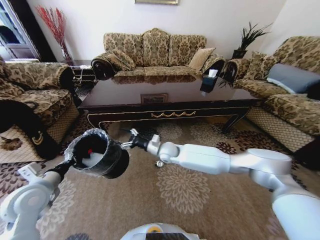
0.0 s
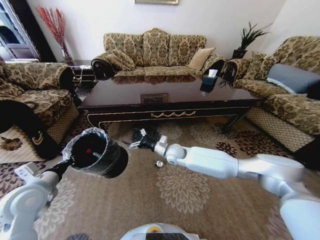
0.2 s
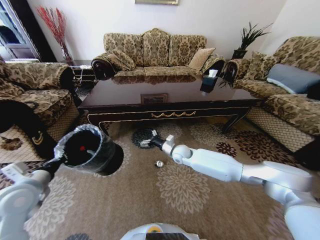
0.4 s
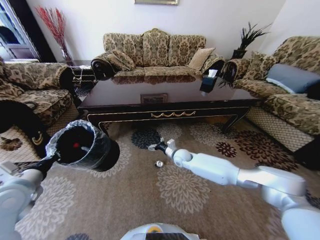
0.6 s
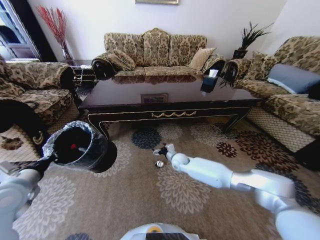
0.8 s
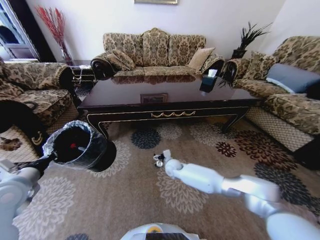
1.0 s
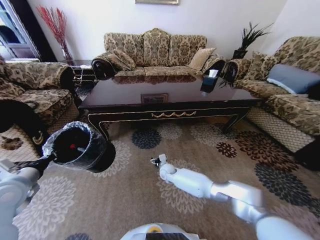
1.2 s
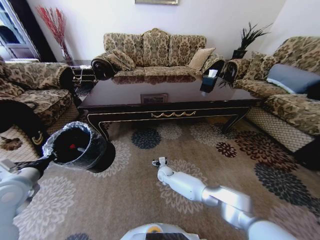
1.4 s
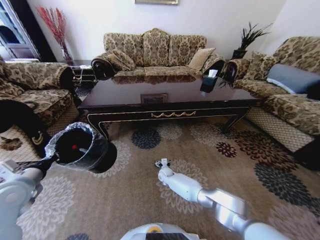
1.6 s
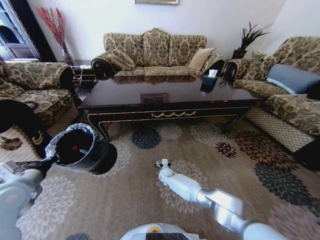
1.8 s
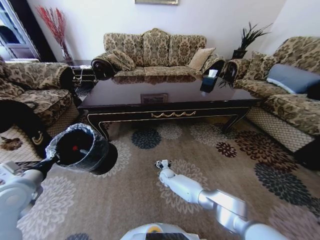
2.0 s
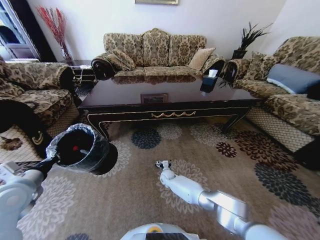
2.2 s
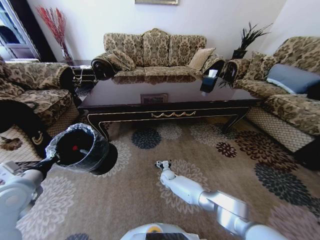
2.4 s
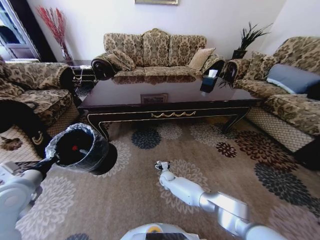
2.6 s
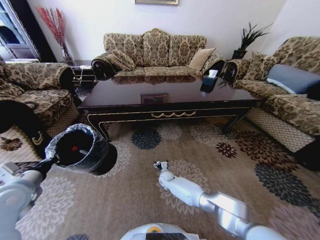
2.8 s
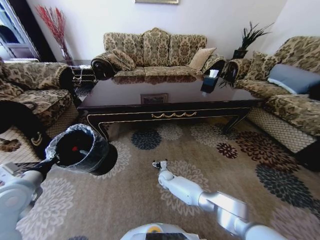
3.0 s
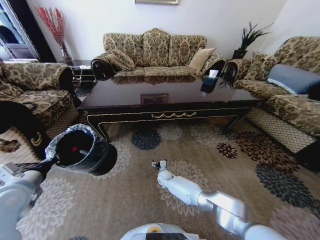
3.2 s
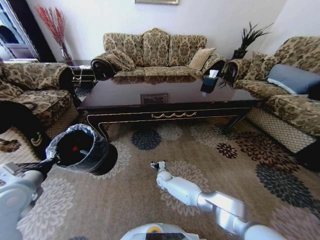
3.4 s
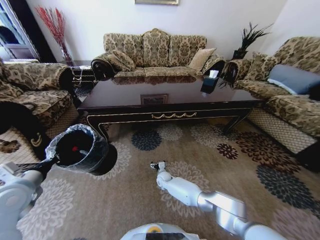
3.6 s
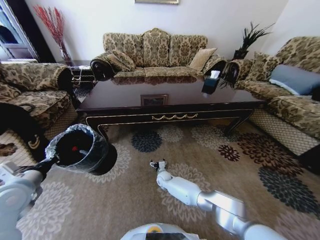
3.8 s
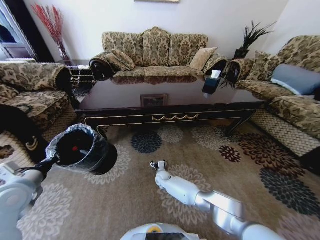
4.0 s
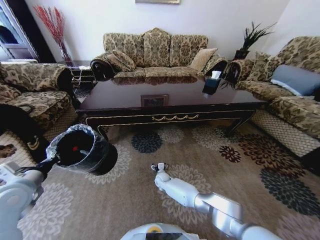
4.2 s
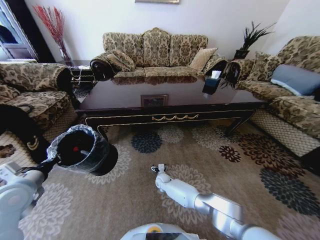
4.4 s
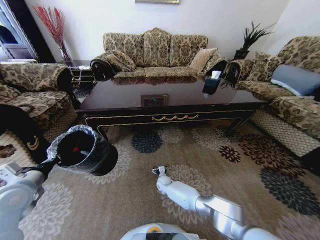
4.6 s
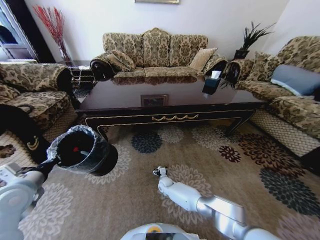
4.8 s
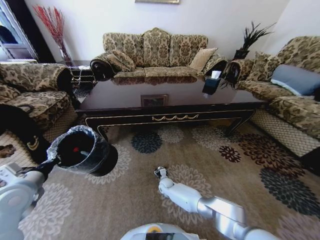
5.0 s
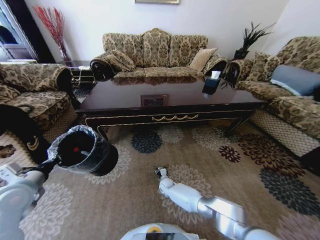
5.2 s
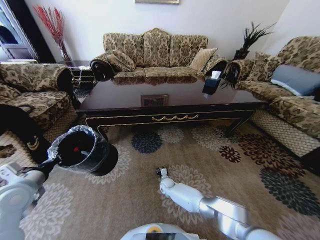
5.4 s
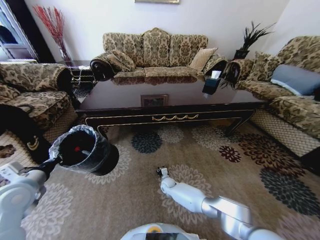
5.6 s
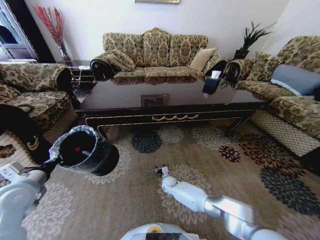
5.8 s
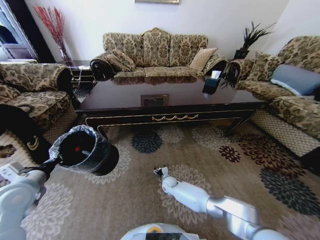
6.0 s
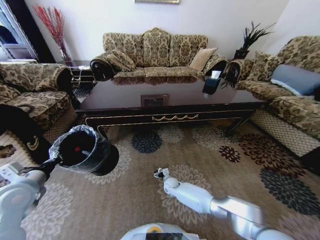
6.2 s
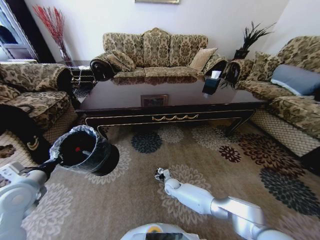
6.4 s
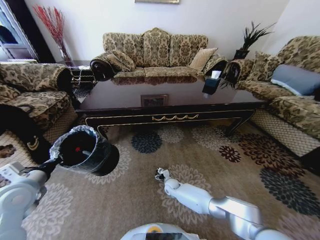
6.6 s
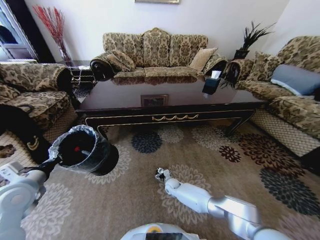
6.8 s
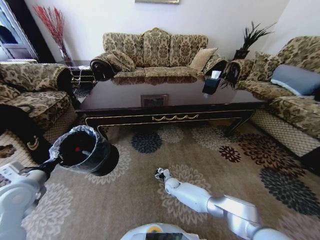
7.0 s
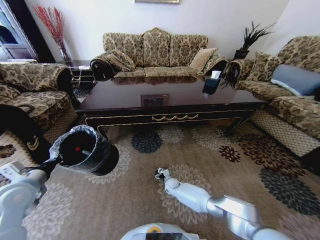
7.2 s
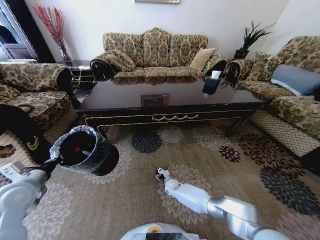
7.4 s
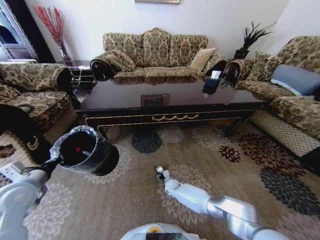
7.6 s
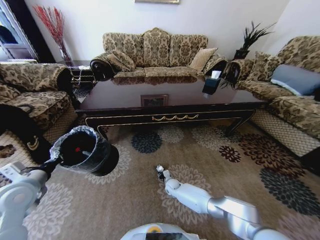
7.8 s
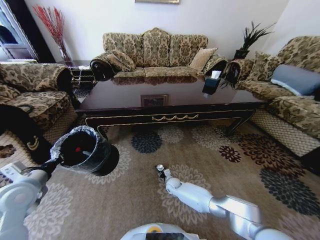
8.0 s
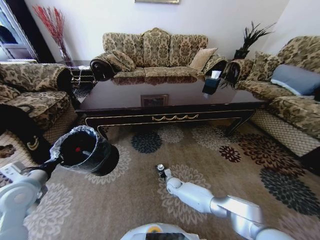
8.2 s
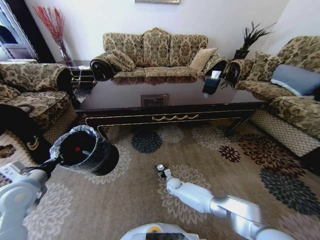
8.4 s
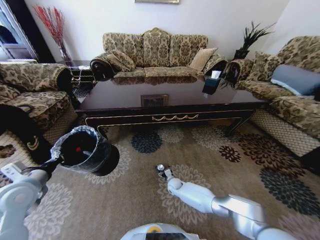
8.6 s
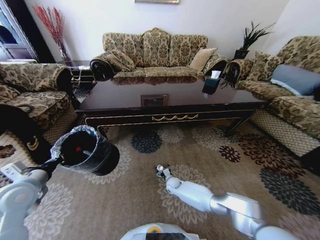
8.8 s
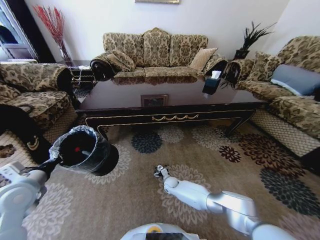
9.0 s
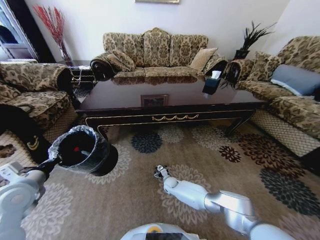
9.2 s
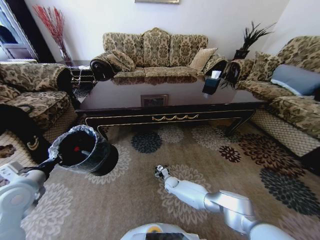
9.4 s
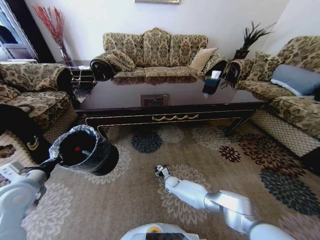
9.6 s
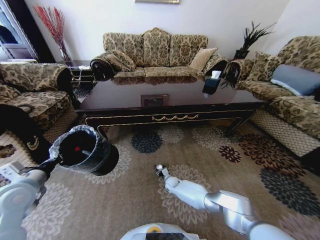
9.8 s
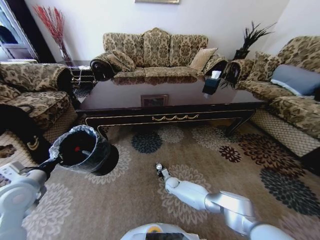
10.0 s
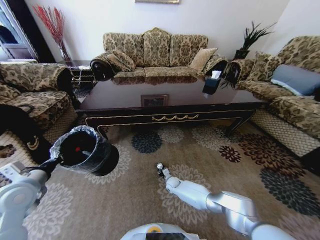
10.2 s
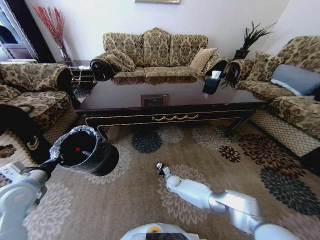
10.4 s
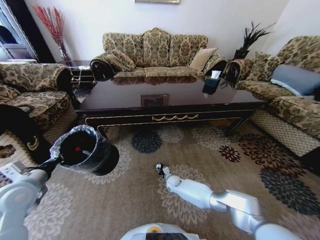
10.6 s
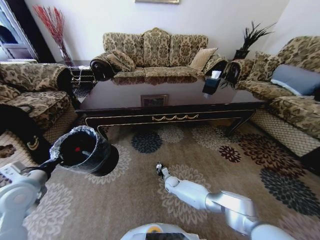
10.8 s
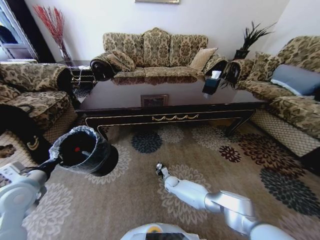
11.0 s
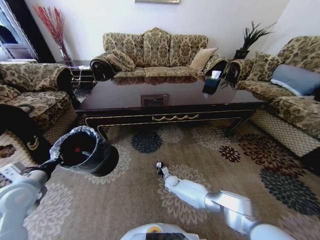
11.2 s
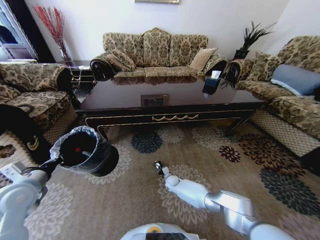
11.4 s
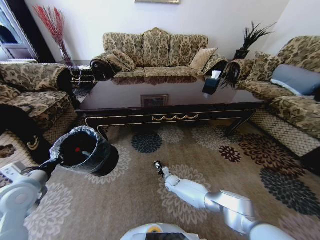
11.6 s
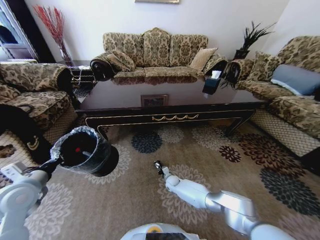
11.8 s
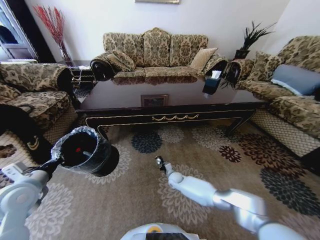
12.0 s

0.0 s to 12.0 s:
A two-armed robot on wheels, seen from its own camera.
Task of the whole recording: Move to the front of the table and pick up the trash from the floor, then place it into the trash bin.
0.0 to 1.6 s: The right gripper goes about 25 cm downward.
1.6 to 4.4 s: The grippers stay close to where they were, moving slightly.
4.4 to 6.0 s: The right gripper closes, then reopens.
6.0 to 7.6 s: The grippers stay close to where they were, moving slightly.
7.6 to 9.0 s: The right gripper opens.
9.0 to 10.4 s: The right gripper closes up.
10.4 to 12.0 s: The right gripper closes its fingers.

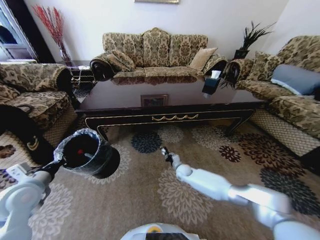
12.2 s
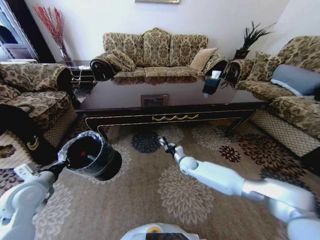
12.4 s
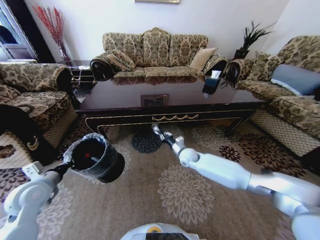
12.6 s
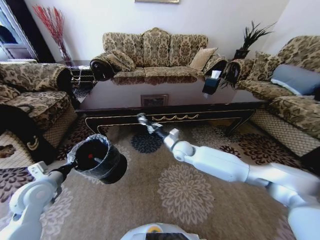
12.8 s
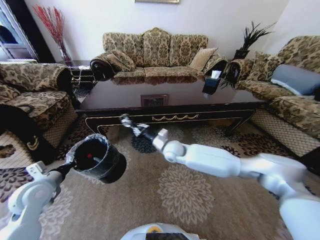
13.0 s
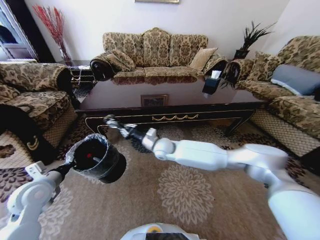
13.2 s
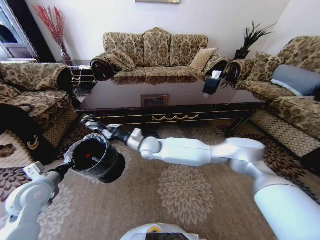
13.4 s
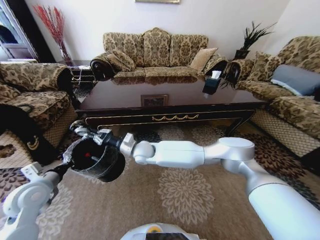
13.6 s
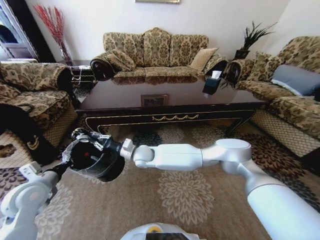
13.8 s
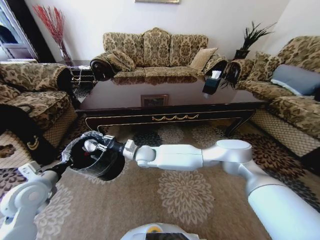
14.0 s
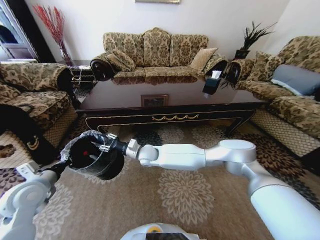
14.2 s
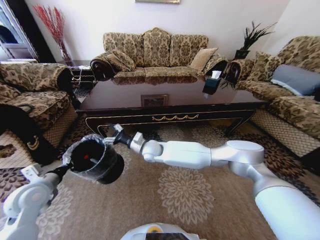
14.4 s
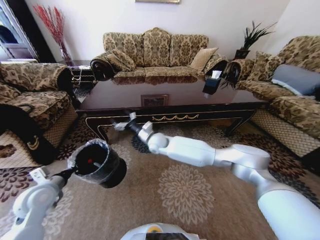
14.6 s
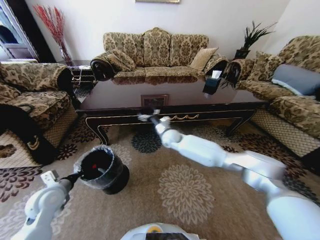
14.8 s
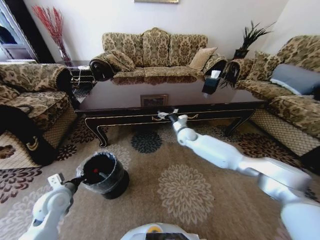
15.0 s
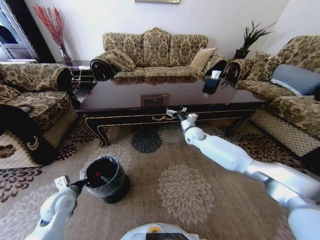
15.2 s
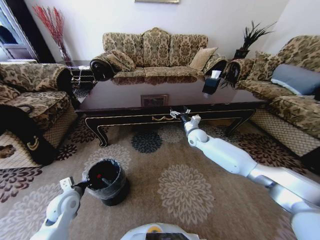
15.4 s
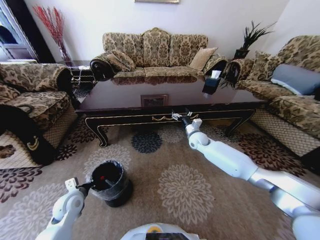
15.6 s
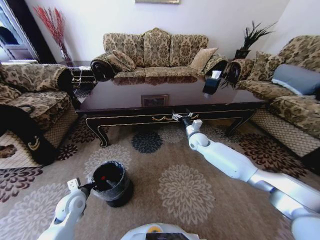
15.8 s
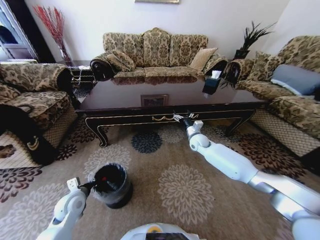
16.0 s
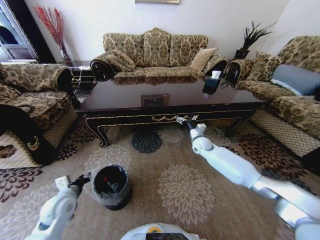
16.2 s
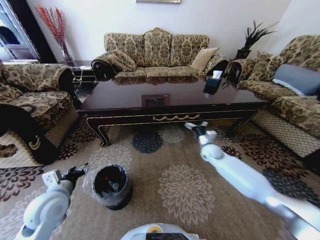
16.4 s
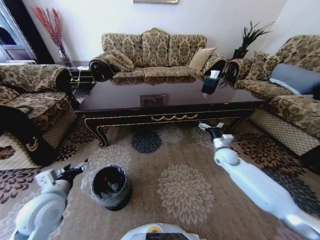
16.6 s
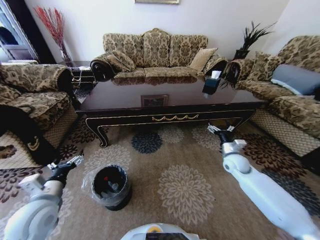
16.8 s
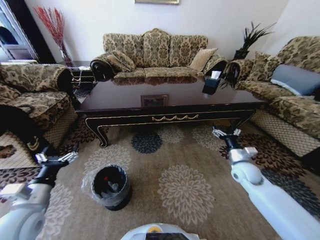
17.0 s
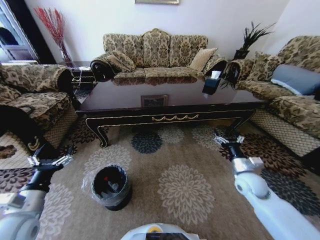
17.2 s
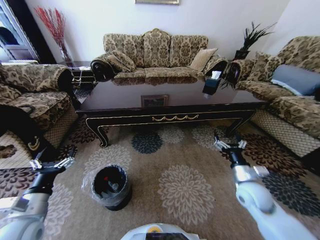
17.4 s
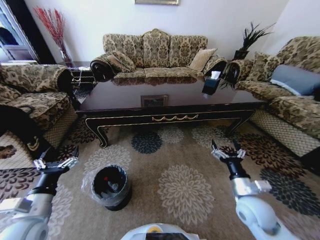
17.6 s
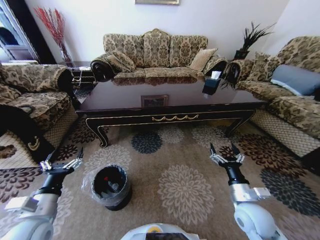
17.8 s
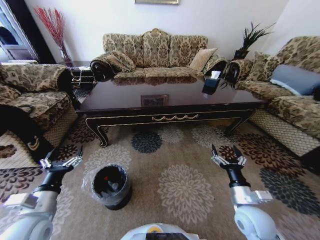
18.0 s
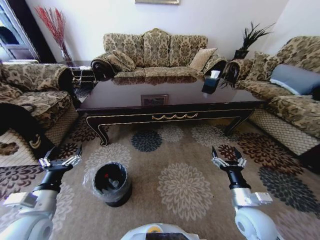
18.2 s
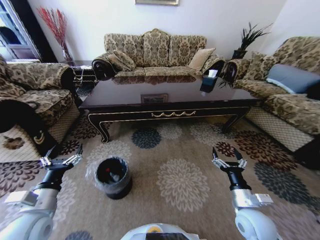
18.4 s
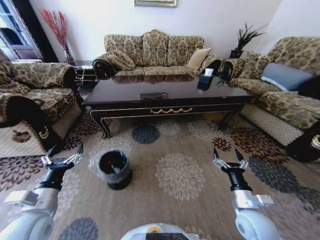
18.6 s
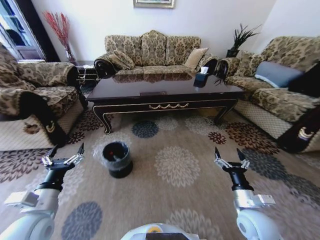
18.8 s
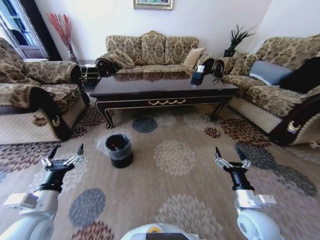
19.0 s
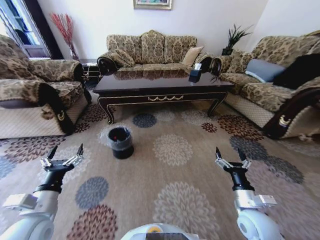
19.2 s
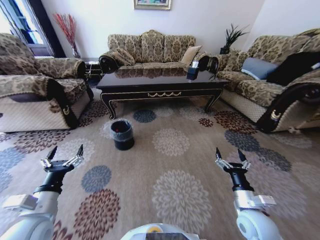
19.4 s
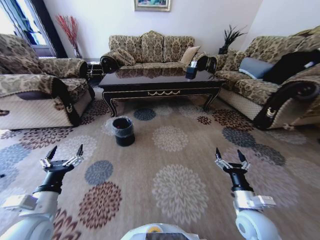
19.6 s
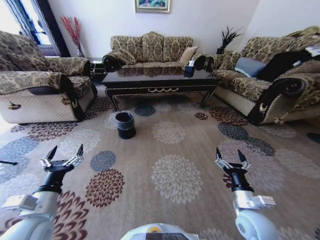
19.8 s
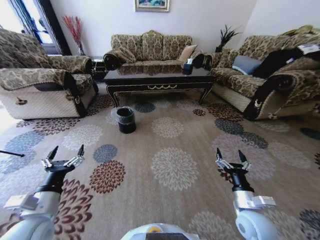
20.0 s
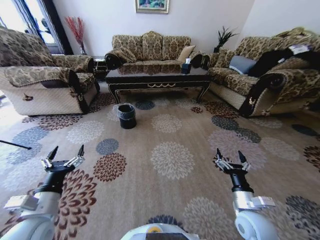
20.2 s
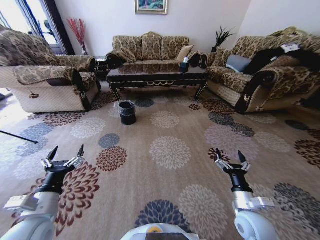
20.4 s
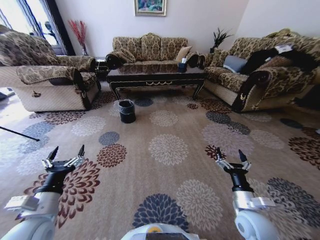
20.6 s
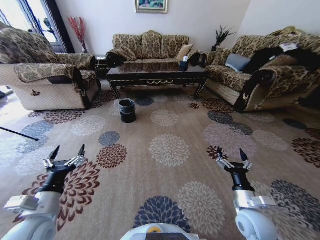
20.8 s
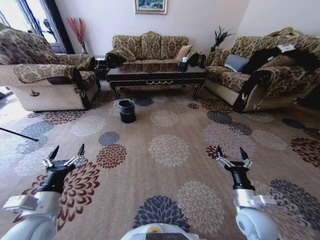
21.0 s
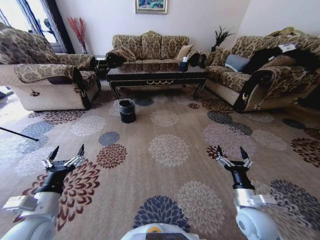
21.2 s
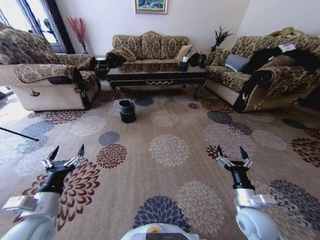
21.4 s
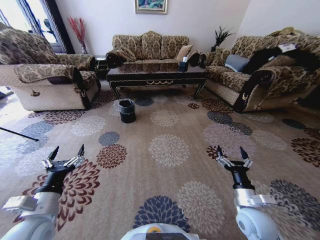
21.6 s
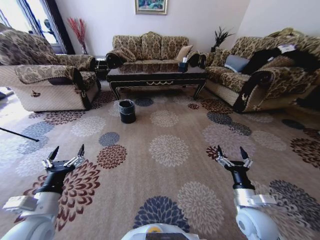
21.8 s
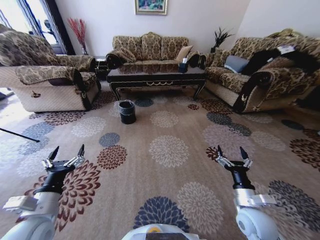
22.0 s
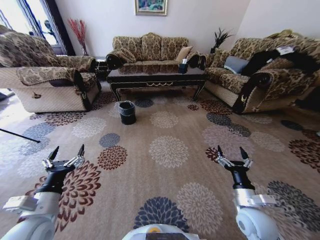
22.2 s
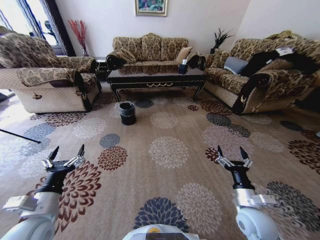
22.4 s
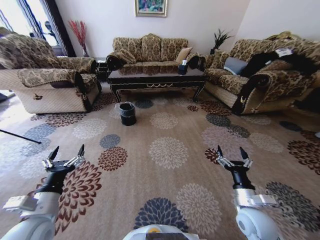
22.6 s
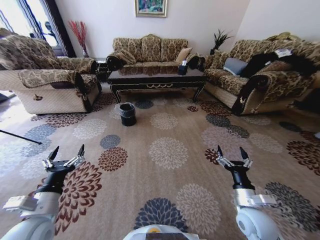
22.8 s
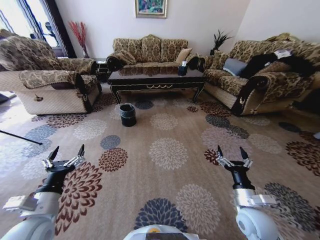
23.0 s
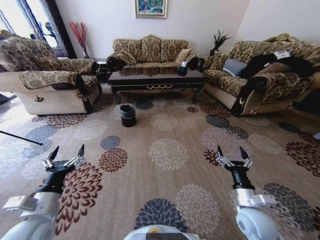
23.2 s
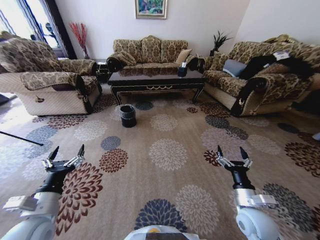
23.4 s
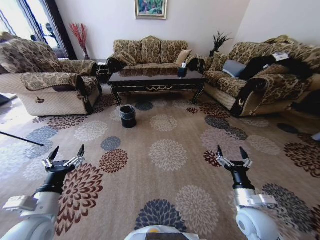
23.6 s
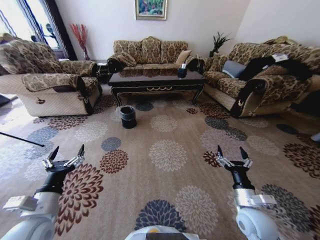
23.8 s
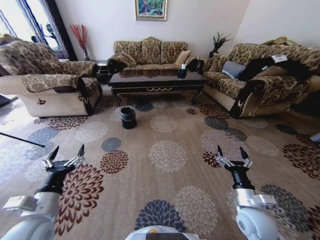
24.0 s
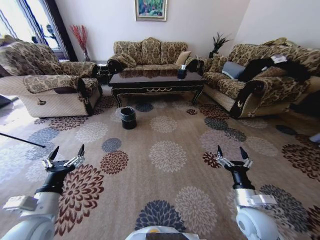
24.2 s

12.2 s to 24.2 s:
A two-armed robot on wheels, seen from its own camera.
Task of the whole recording: Move to the front of the table and pick up the trash from the floor, then place it into the trash bin.
12.2 to 13.8 s: The right gripper is displaced to the left and upward by about 30 cm.
13.8 to 15.2 s: The left gripper heads downward, covering about 10 cm. The right gripper heads to the right and forward, covering approximately 30 cm, and opens.
15.2 to 16.6 s: The left gripper travels upward by approximately 10 cm, and opens its fingers. Meanwhile the right gripper heads to the right, backward and downward, covering roughly 20 cm.
16.6 to 18.2 s: The right gripper moves backward, about 25 cm; the left gripper is displaced backward by approximately 5 cm.
21.2 to 22.6 s: Both grippers stay about where they are.
